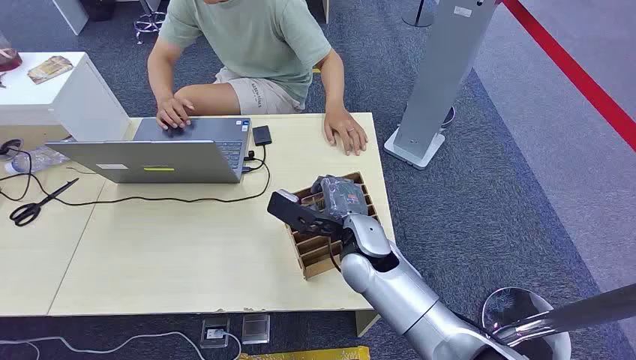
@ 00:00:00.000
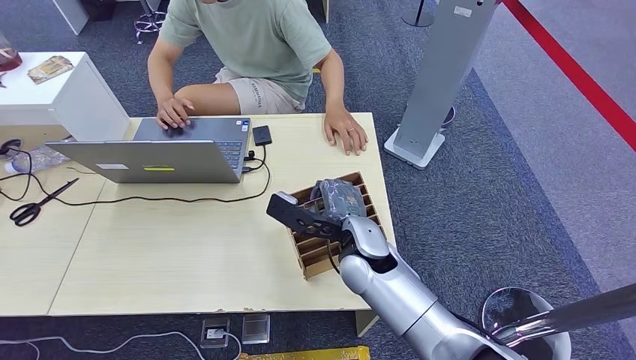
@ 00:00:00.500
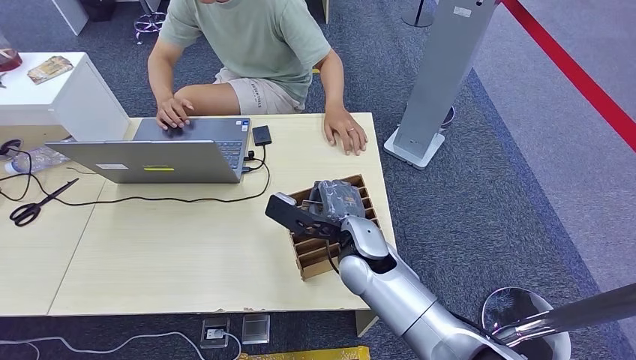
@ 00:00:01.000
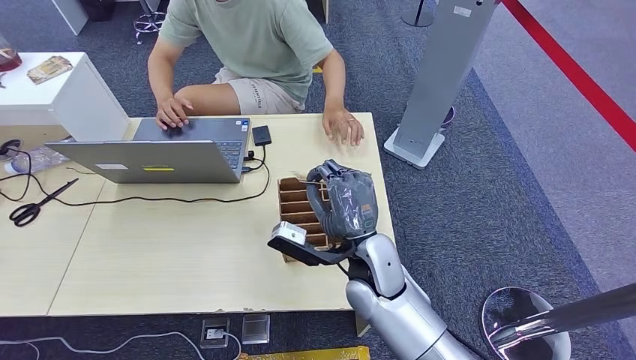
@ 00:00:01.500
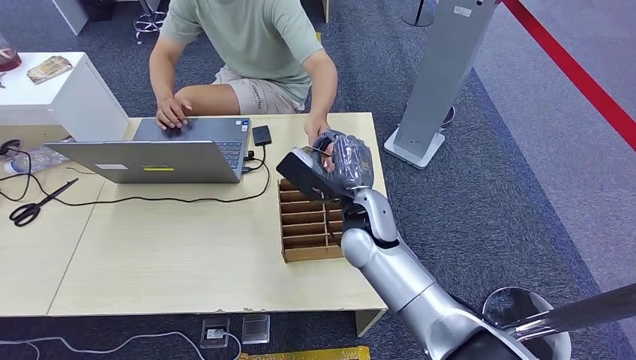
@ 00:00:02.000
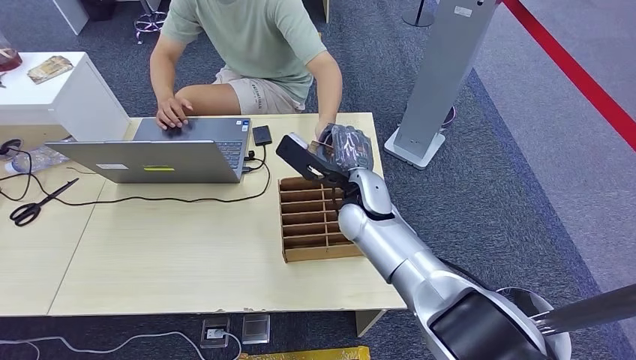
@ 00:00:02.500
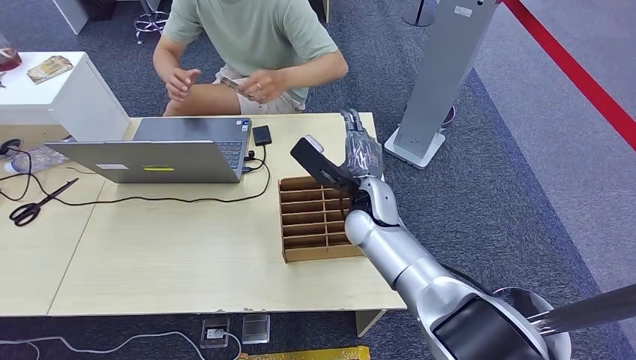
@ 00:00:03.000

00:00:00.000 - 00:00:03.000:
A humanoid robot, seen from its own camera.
Step, 00:00:00.000 - 00:00:01.500: Pick up the room card from the card holder.
Step, 00:00:02.500 - 00:00:03.000: Hand the room card to the target.
00:00:01.500 - 00:00:03.000: The right hand moves forward, about 10 cm.

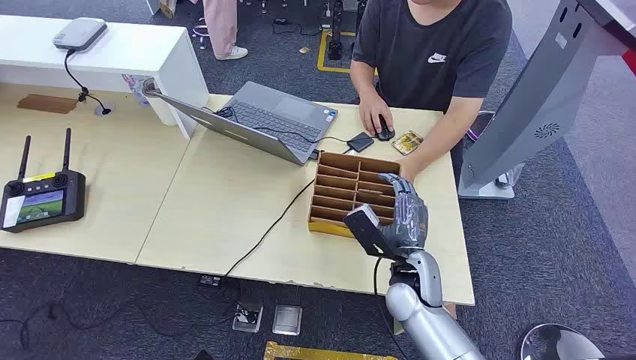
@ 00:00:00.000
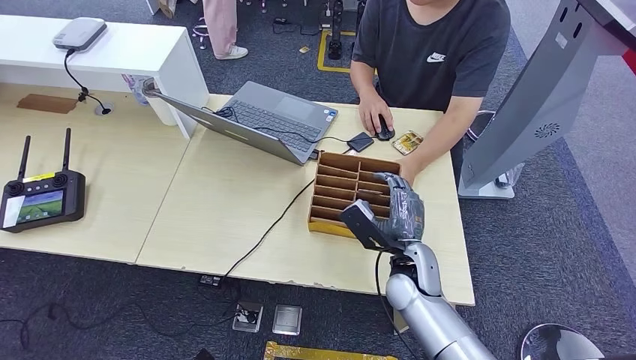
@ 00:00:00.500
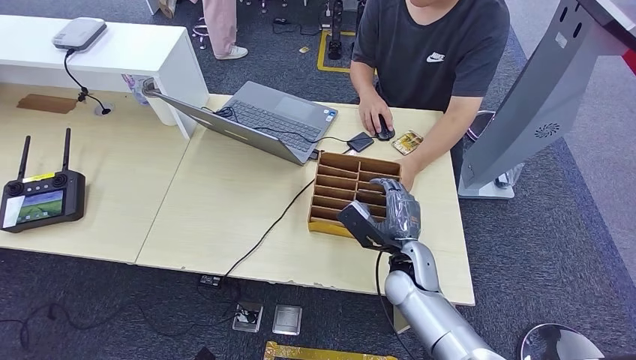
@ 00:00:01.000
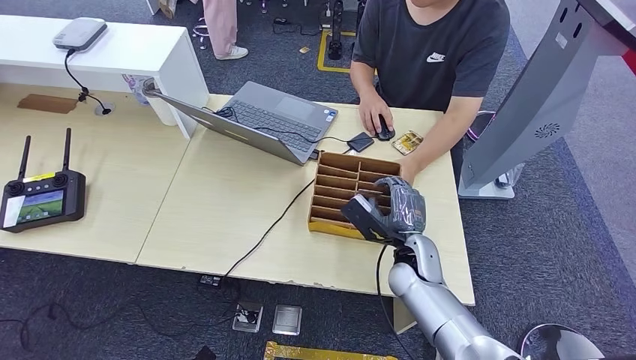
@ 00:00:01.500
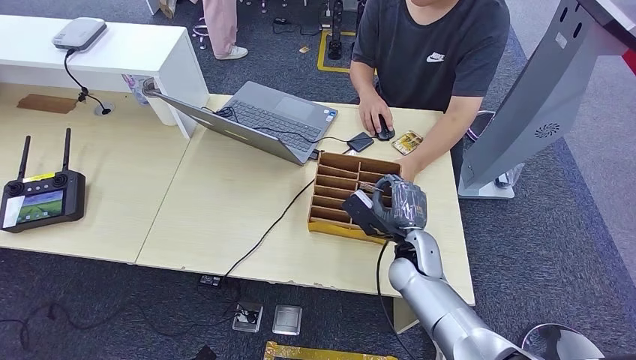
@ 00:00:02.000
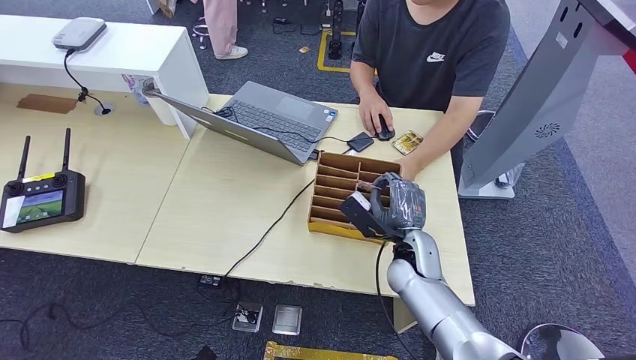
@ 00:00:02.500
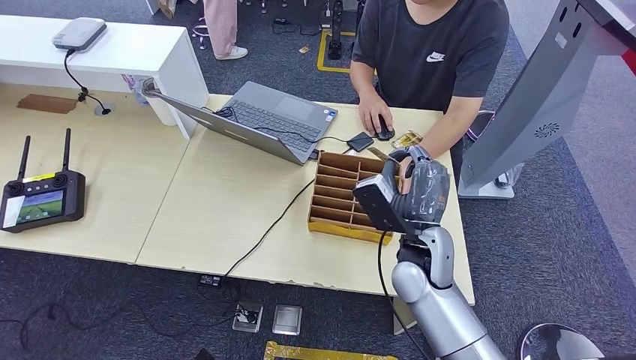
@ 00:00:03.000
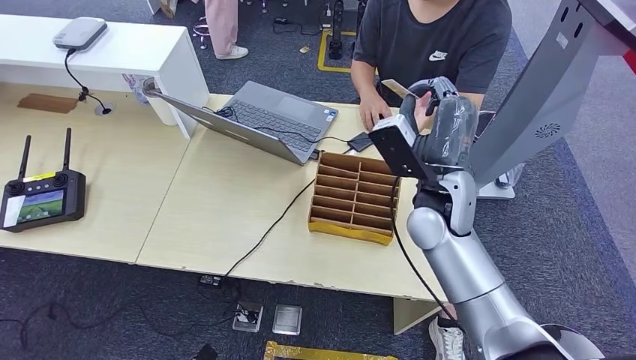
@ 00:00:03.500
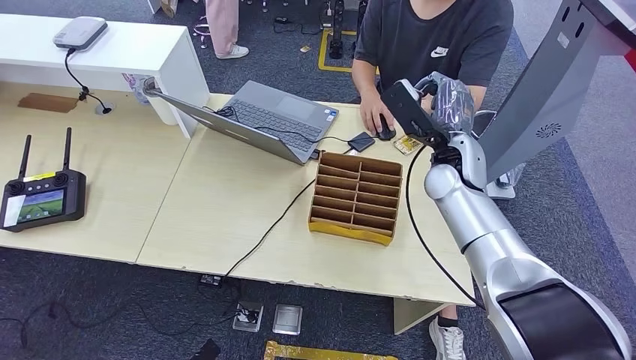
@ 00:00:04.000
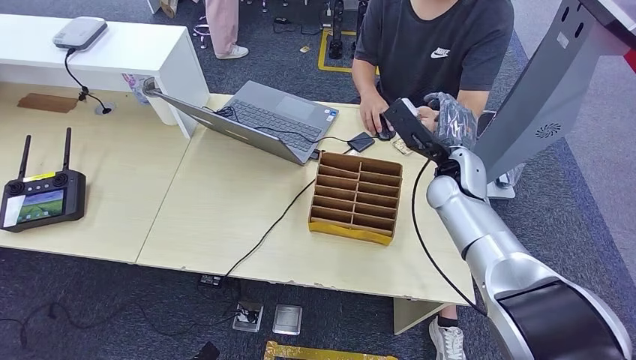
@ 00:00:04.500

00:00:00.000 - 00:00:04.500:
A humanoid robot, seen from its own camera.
Step, 00:00:00.000 - 00:00:02.000: Pick up the room card from the card holder.
Step, 00:00:02.500 - 00:00:04.500: Hand the room card to the target.
00:00:02.000 - 00:00:04.500: The right hand moves upward, forward and to the right, approximately 15 cm.
